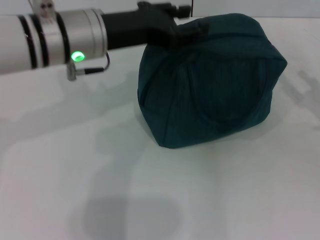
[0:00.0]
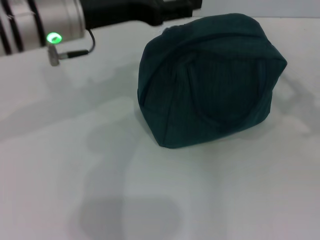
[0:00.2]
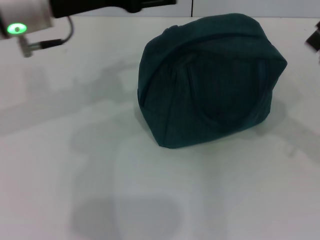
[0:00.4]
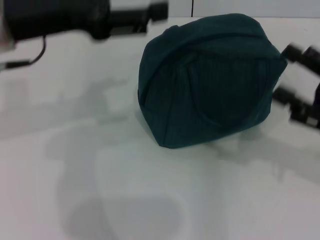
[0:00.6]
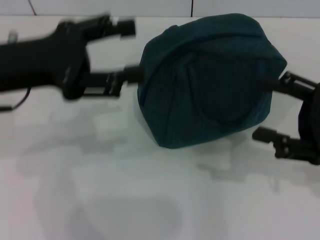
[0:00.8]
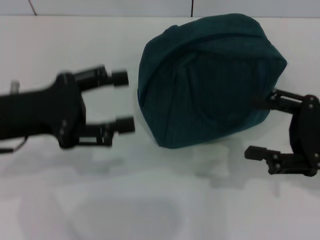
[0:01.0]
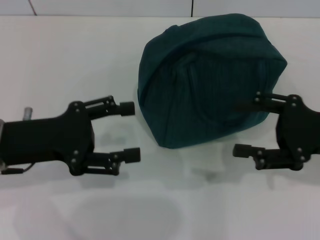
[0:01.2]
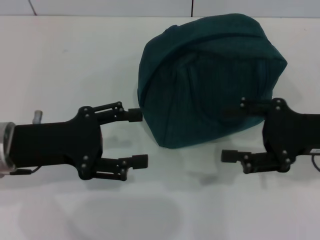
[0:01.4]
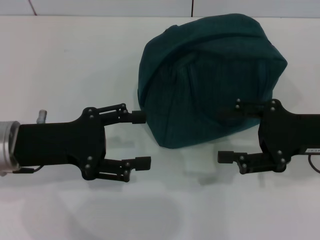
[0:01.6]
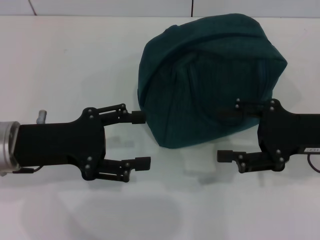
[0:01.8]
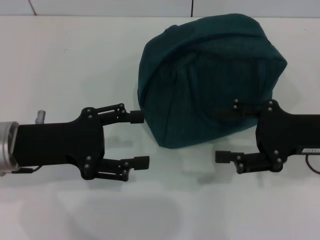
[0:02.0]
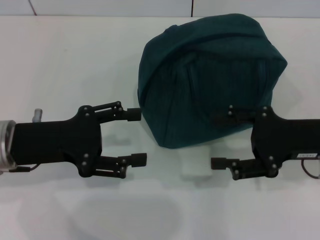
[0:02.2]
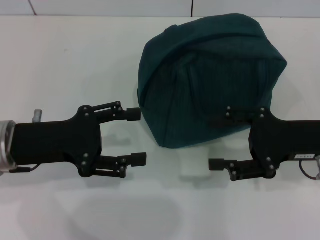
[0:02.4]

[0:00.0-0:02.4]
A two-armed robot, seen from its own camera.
0:00.0 to 0:01.2: The left gripper moves to the left, backward and downward, approximately 15 cm, and opens its fingers, while the right gripper moves to the left, roughly 10 cm.
0:01.2 to 0:02.4: The grippers move only a little.
